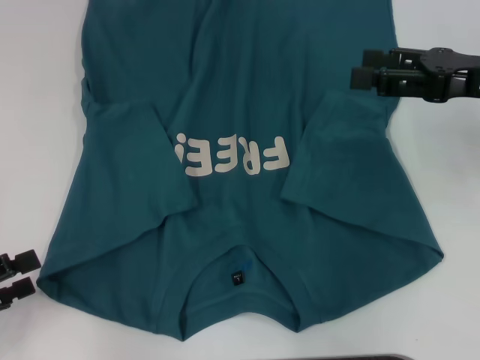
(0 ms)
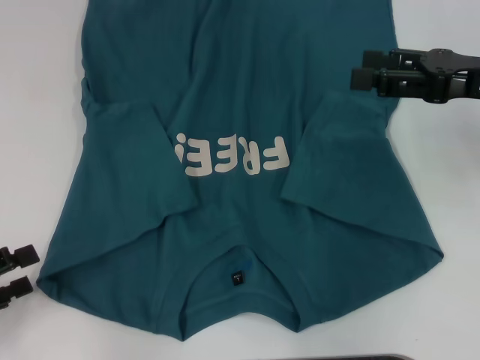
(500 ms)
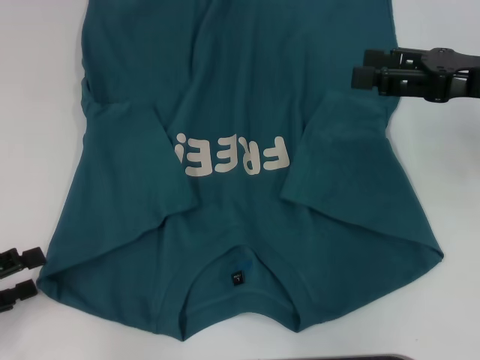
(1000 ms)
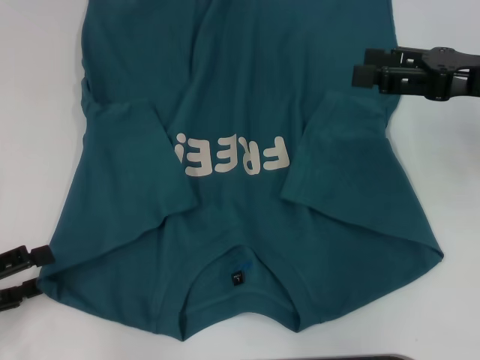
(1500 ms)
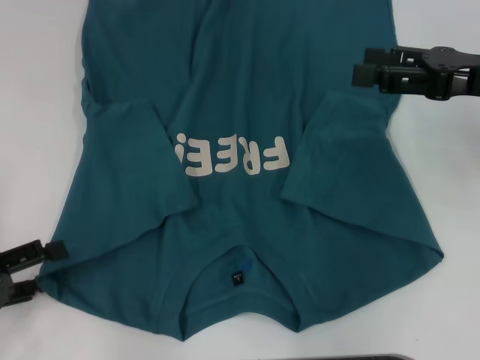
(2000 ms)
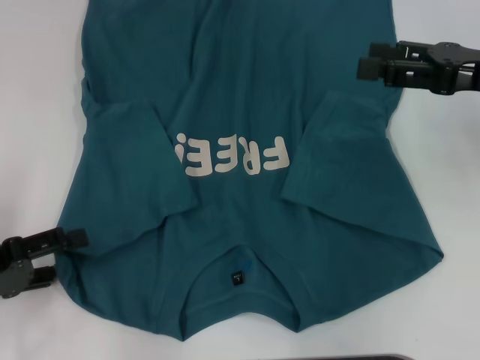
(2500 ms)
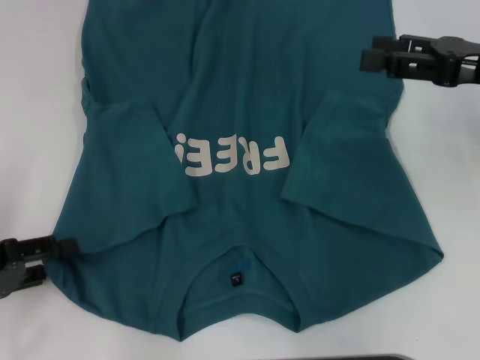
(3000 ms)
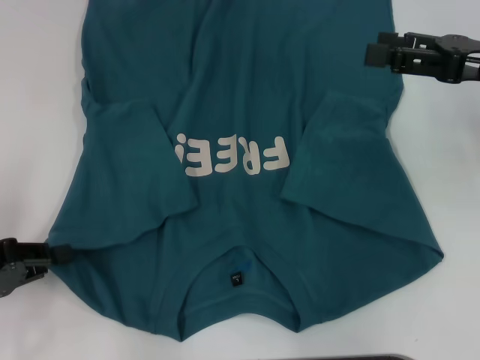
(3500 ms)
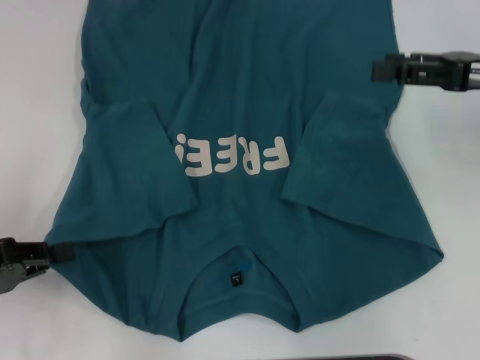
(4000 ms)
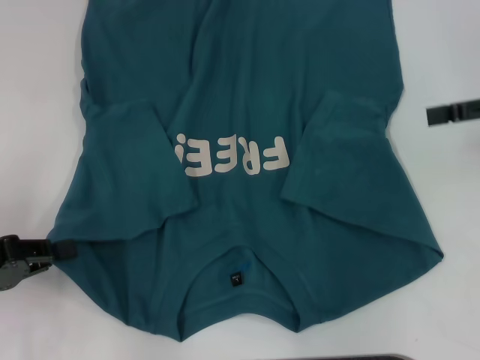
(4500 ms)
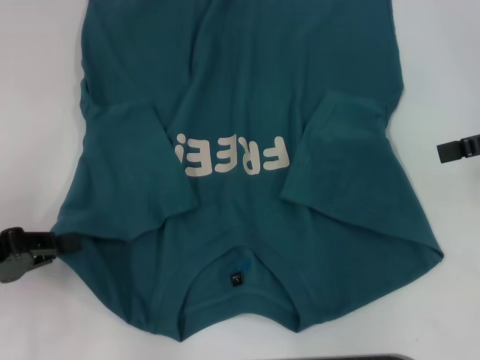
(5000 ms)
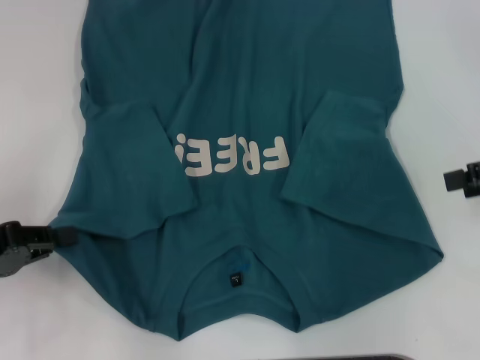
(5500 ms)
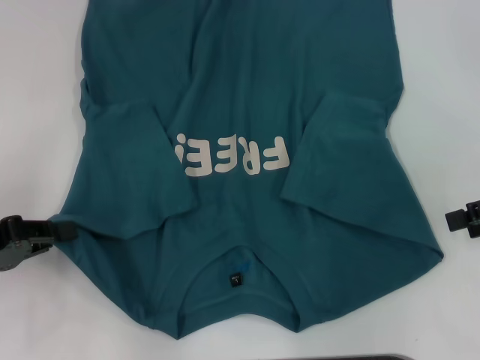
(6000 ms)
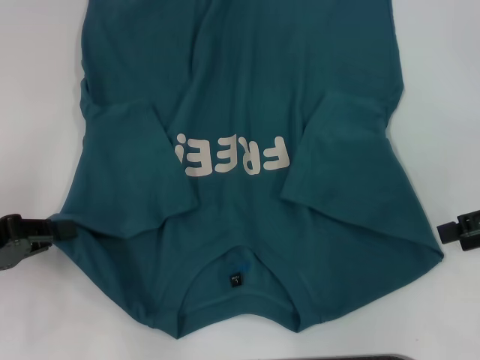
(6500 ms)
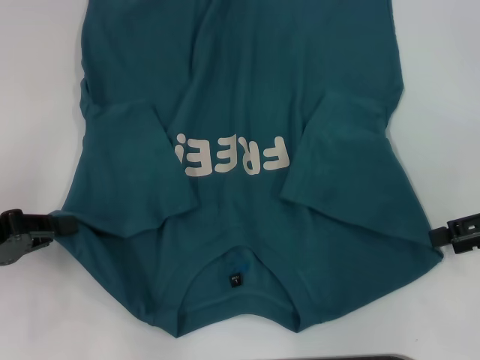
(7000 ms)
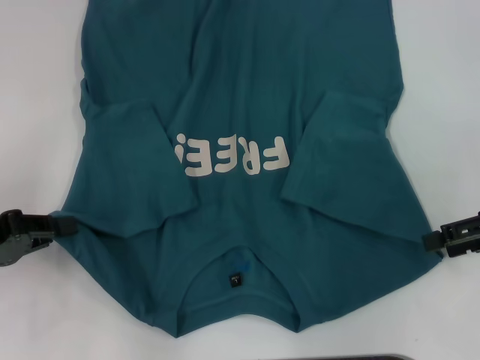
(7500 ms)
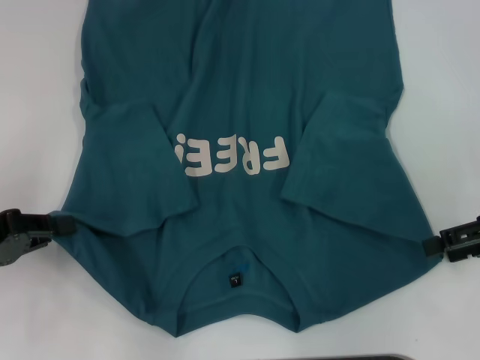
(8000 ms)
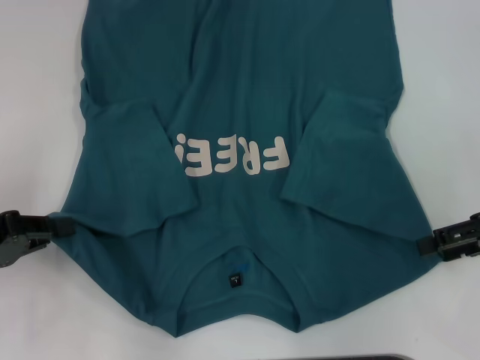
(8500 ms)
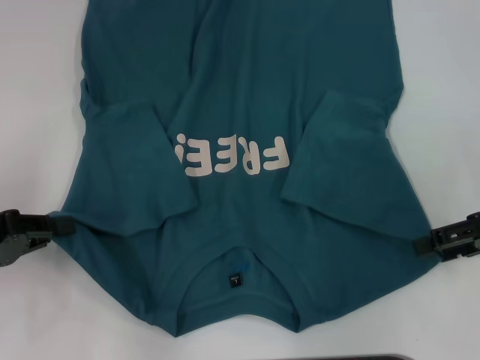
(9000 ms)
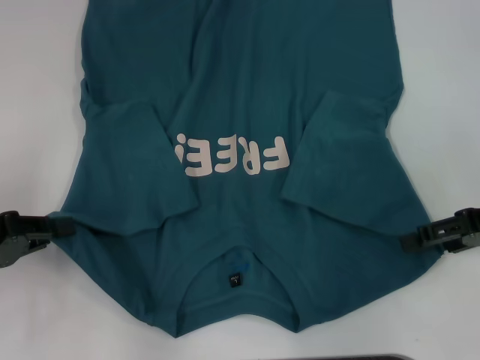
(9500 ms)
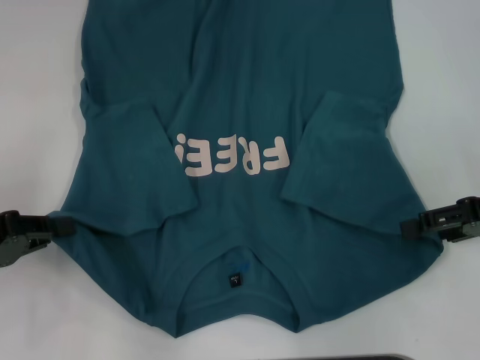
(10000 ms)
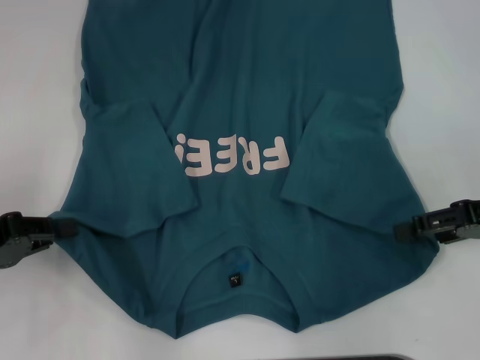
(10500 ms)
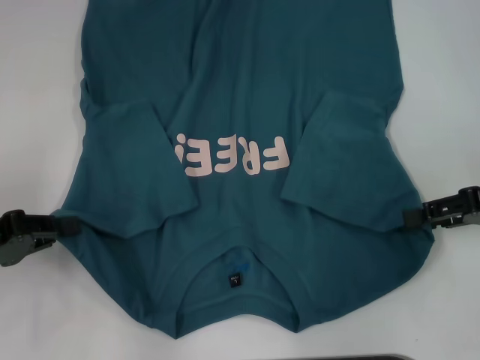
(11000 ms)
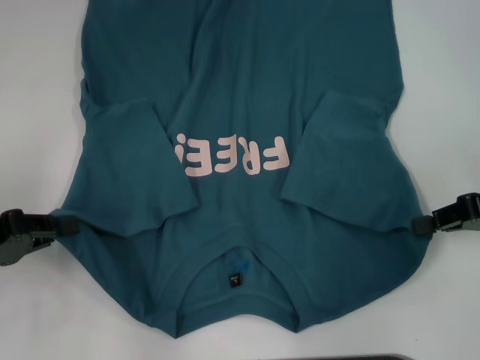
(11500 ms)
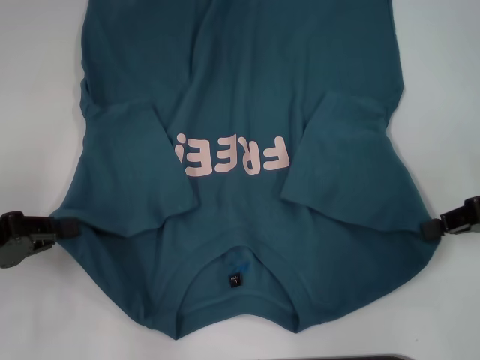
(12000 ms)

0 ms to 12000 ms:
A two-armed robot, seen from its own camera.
Step, 0 ms to 4000 ms: Grab the bottom left corner with your left hand.
0 ms to 2000 ms: There are only small adjustments of the grippers.
2000 ms to 4000 ms: The left gripper closes up.
4000 ms to 6000 ms: The right gripper heads to the right, covering about 5 cm.
6000 ms to 10000 ms: The grippers move only a little.
10000 ms to 12000 ms: The right gripper closes.

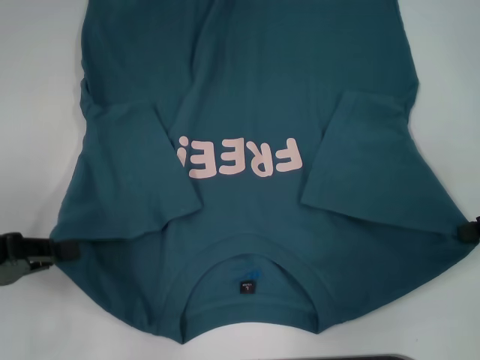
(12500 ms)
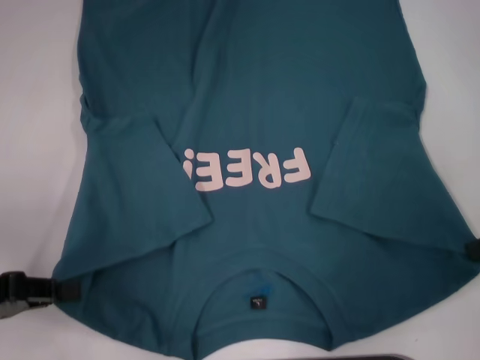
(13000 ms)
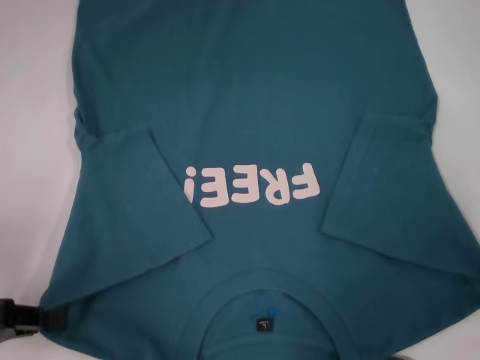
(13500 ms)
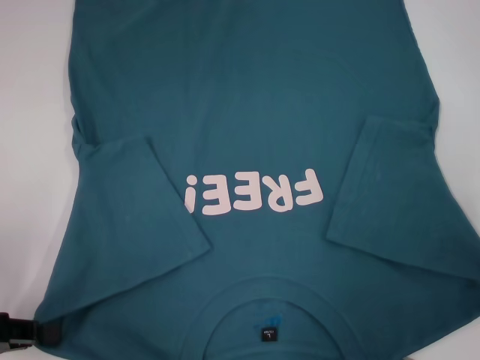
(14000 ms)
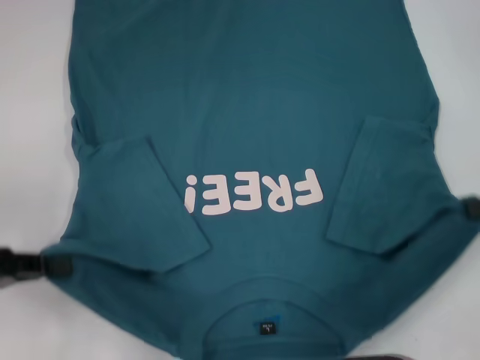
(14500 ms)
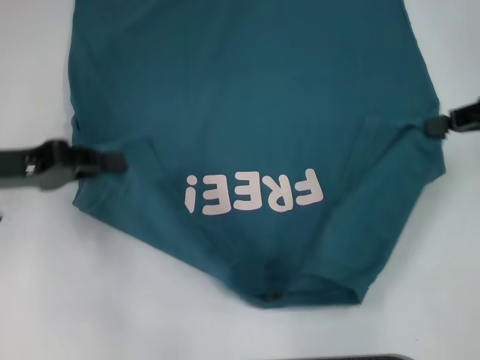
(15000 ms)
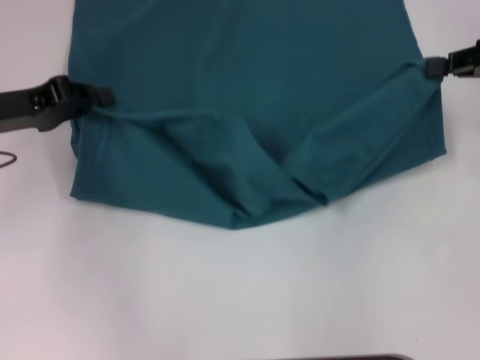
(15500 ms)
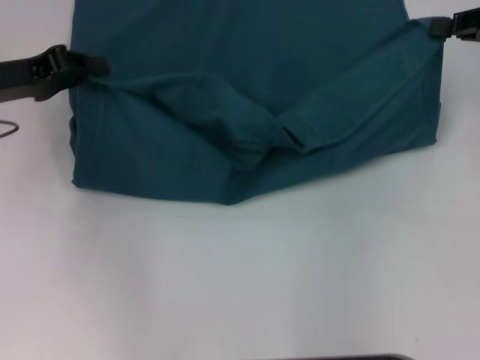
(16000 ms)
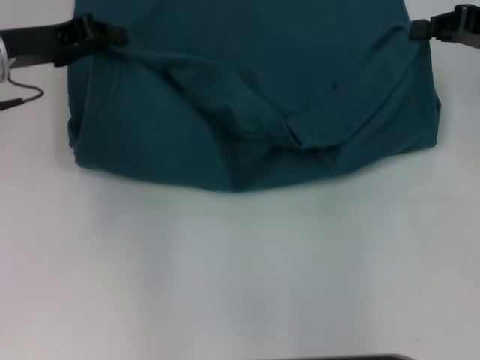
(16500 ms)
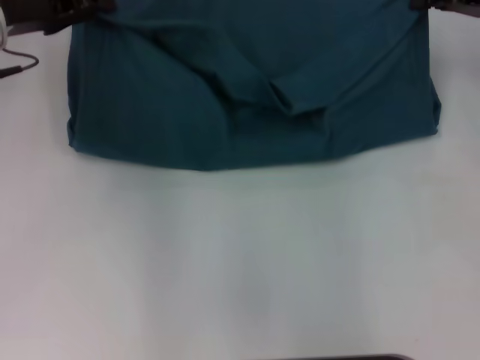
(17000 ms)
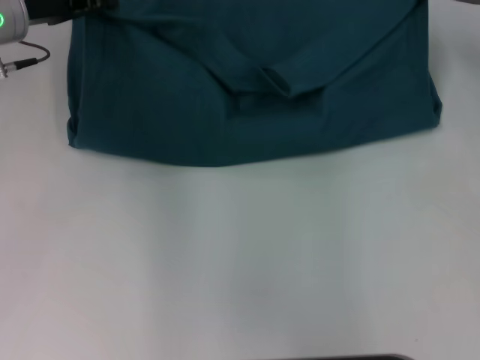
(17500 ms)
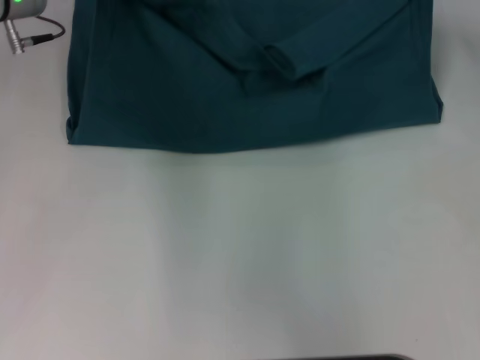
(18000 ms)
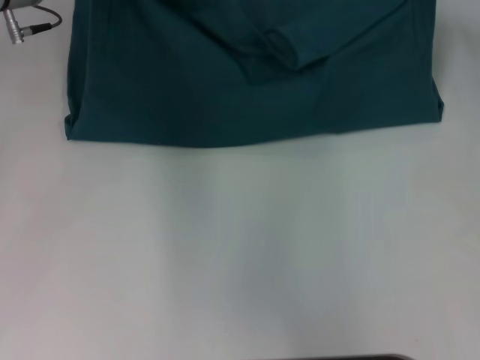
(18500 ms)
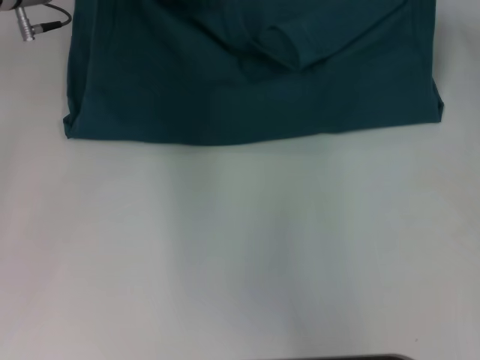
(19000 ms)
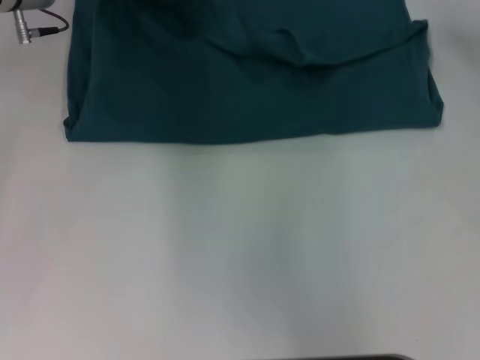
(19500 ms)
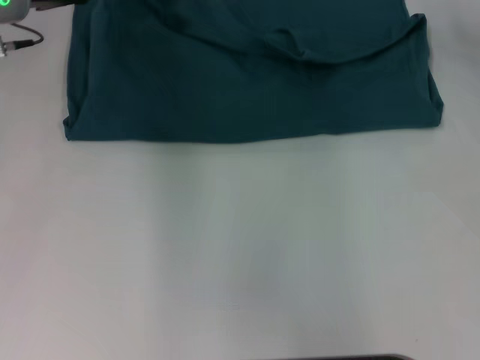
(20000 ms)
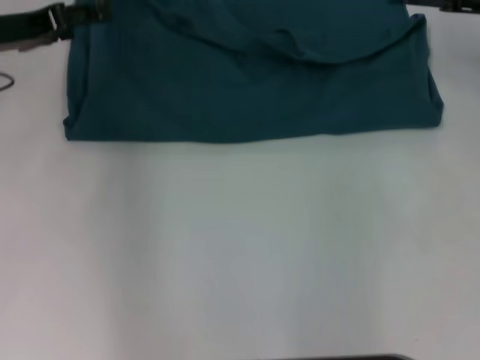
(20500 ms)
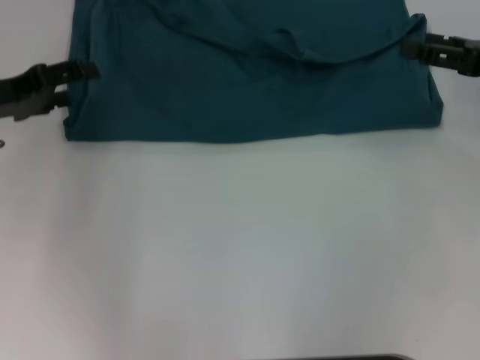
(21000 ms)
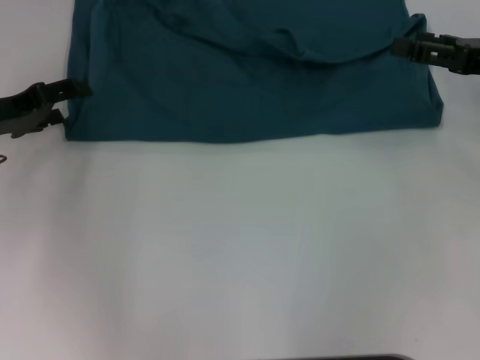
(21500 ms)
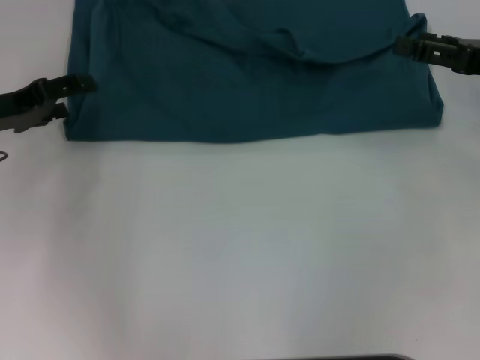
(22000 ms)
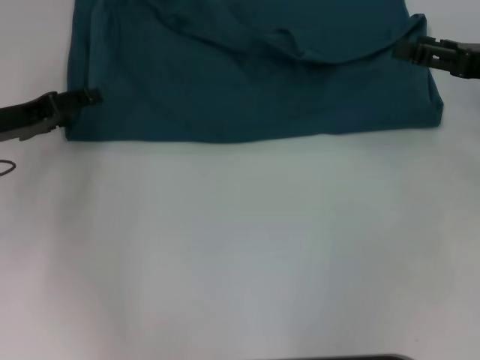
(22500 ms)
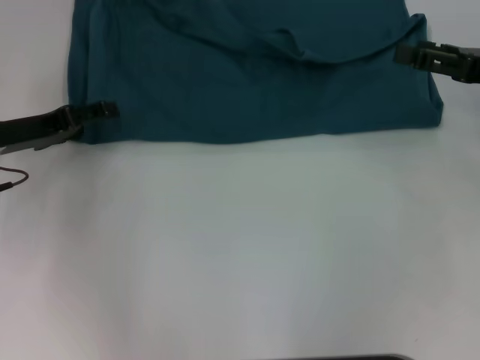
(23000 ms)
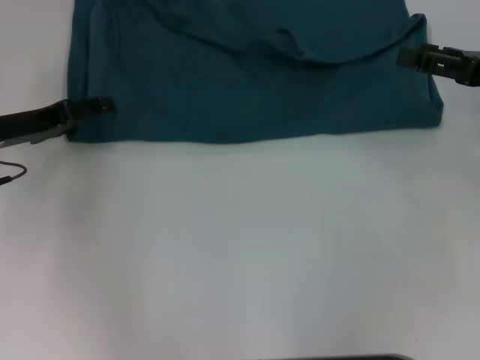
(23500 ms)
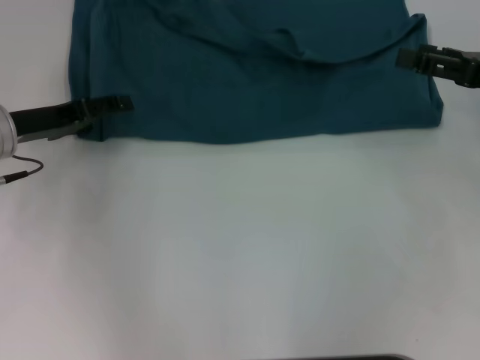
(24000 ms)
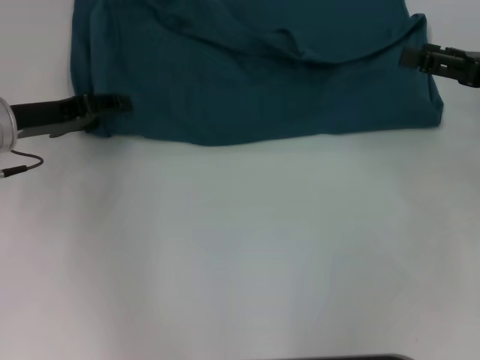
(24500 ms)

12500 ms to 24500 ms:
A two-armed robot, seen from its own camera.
Step, 12500 ms to 20000 ms: Fold the clothes to the left.
Step, 12500 ms to 20000 ms: Fold the clothes to the right.
14500 ms to 16500 ms: The left gripper travels forward and to the right by about 20 cm. Meanwhile the right gripper moves forward, about 10 cm.
16500 ms to 18500 ms: The grippers both shift forward by roughly 5 cm.
18500 ms to 20500 ms: The right gripper opens up; the left gripper shifts some 10 cm backward and to the left, and opens its fingers.
20500 ms to 22500 ms: The right gripper heads backward, covering approximately 5 cm. Meanwhile the left gripper is displaced downward by roughly 5 cm.
22500 ms to 24500 ms: The grippers make only small movements.

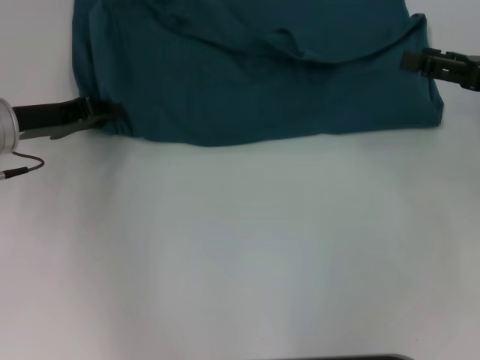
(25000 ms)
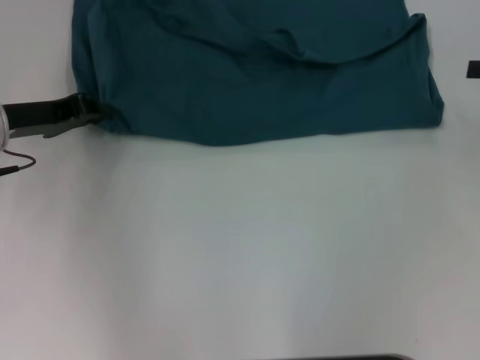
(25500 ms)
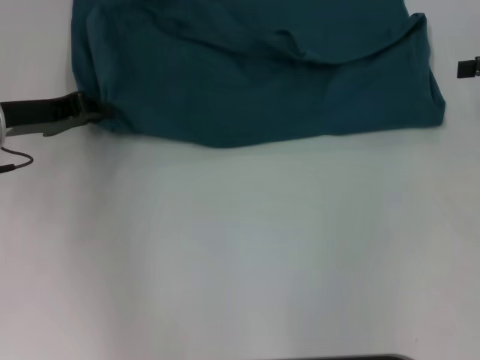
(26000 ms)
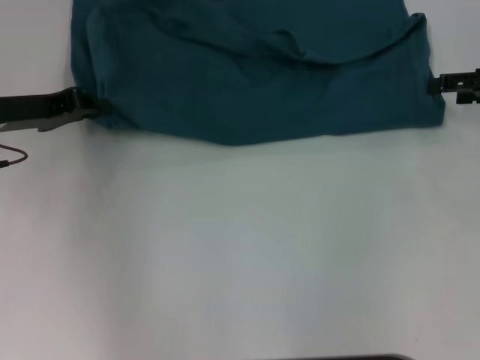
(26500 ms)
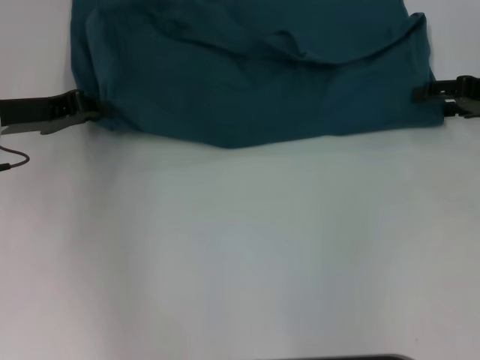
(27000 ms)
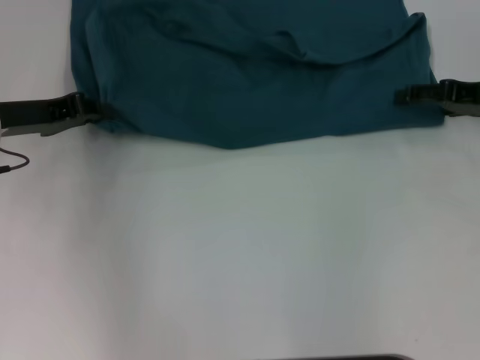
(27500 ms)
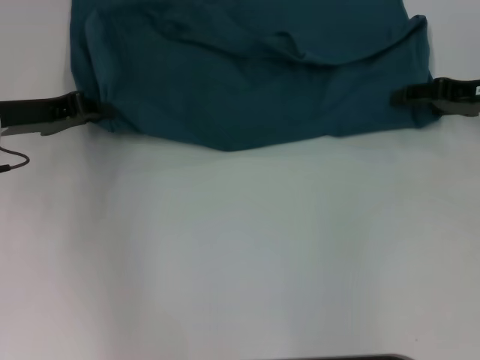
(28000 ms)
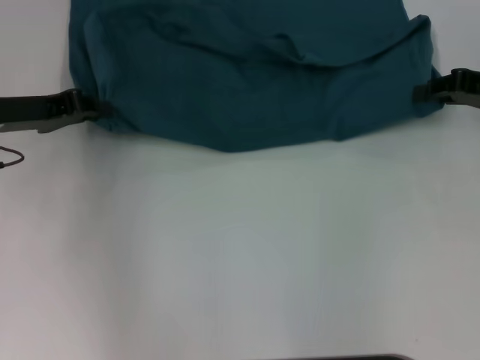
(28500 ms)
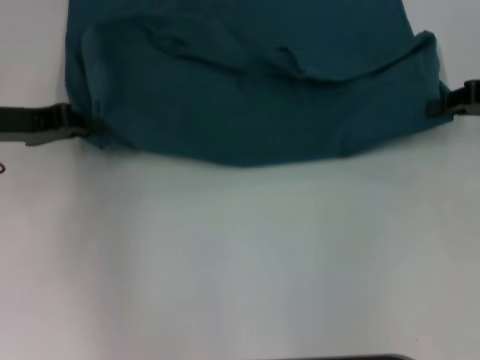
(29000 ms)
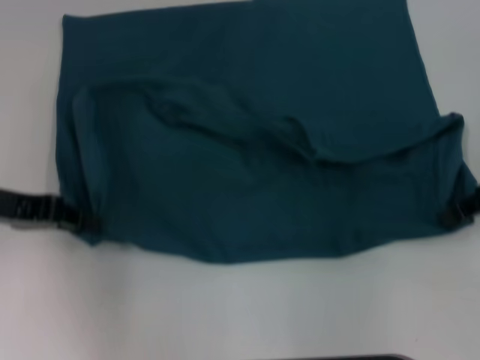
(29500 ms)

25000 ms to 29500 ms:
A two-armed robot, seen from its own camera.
25000 ms to 27000 ms: The right gripper shifts by approximately 5 cm. The left gripper closes.
27000 ms to 29500 ms: The two grippers go approximately 5 cm backward. The right gripper closes.
